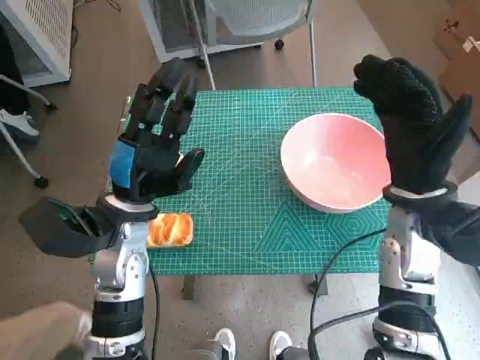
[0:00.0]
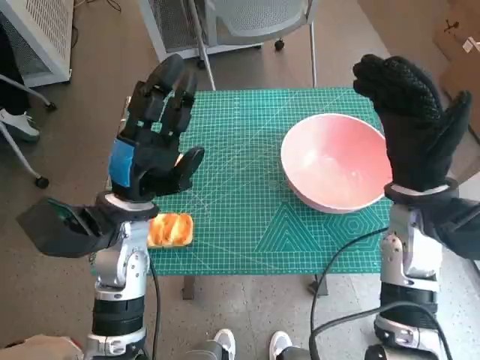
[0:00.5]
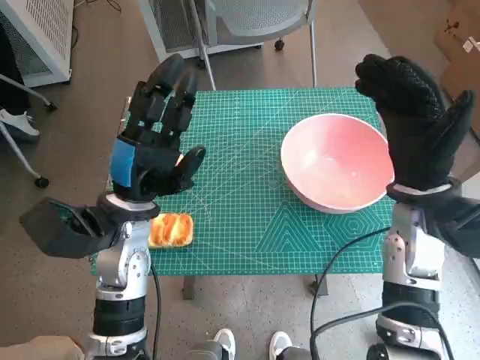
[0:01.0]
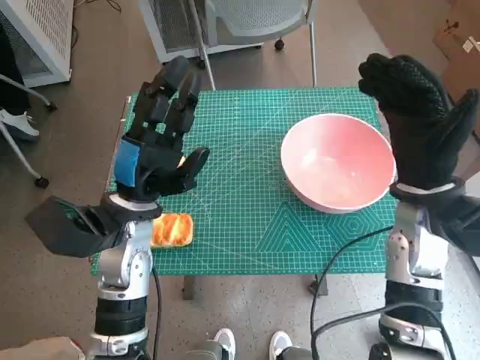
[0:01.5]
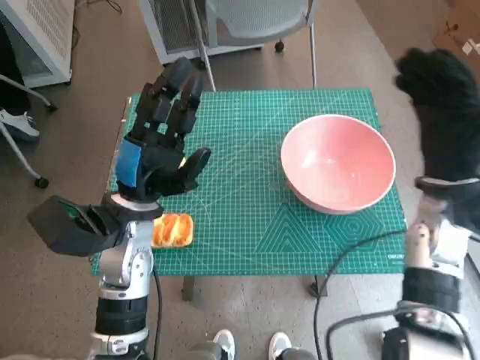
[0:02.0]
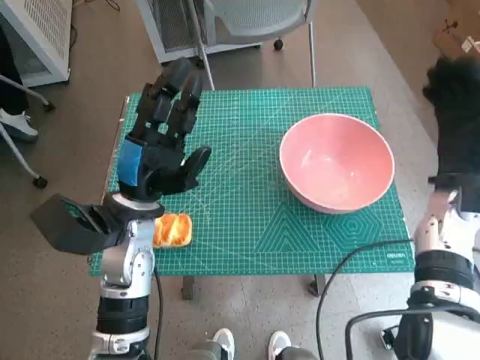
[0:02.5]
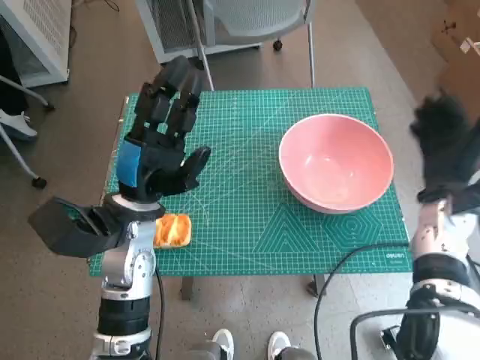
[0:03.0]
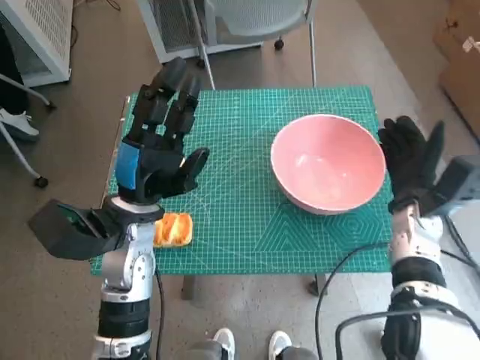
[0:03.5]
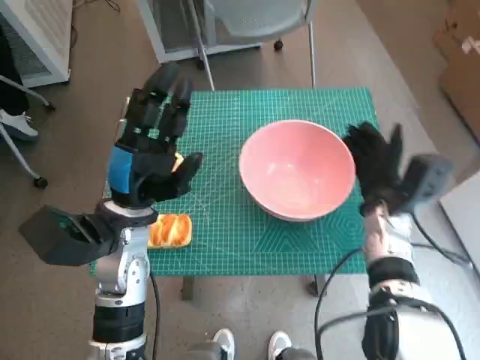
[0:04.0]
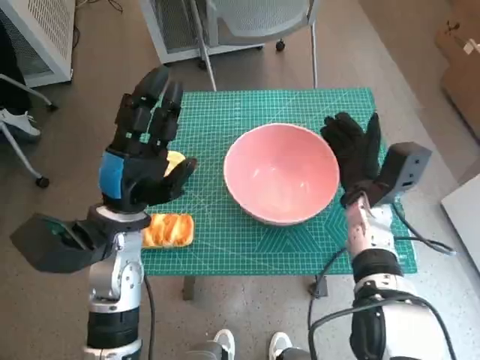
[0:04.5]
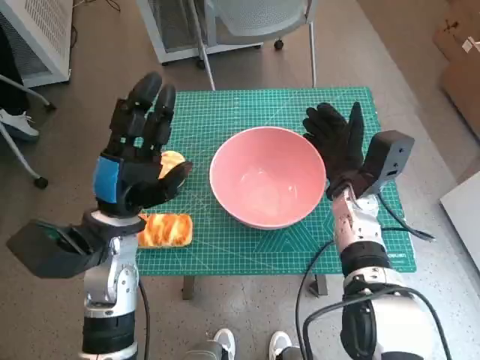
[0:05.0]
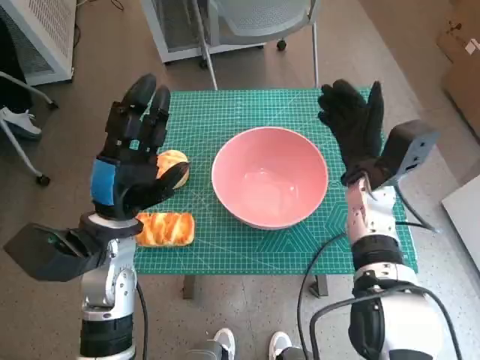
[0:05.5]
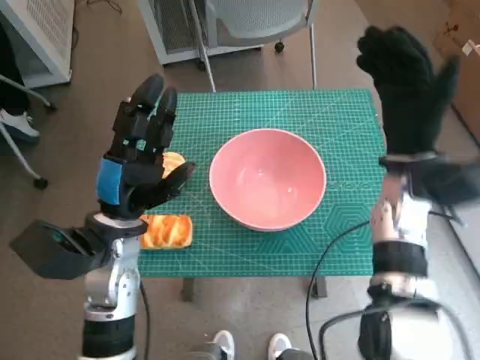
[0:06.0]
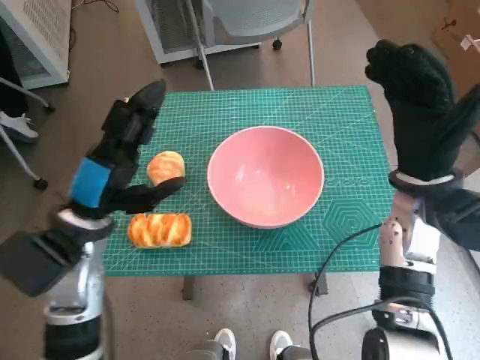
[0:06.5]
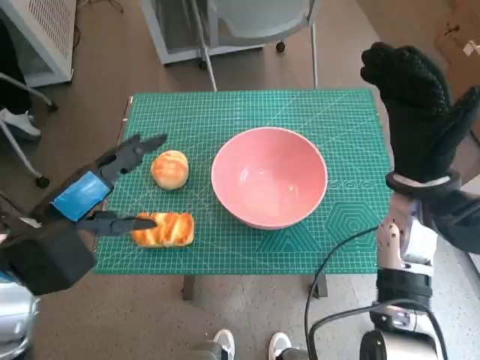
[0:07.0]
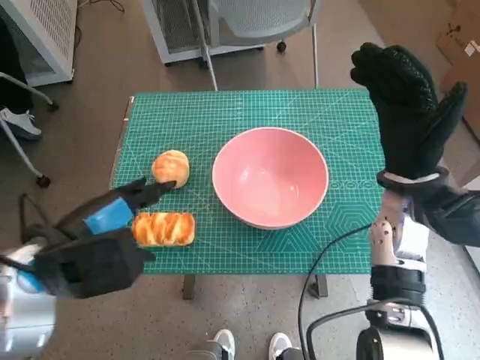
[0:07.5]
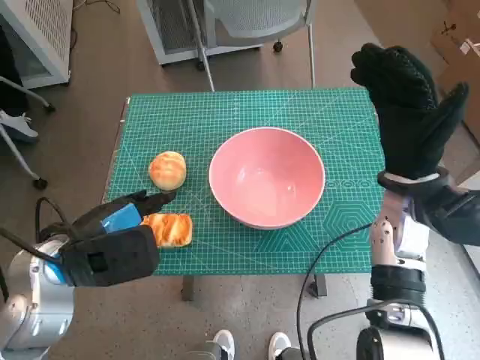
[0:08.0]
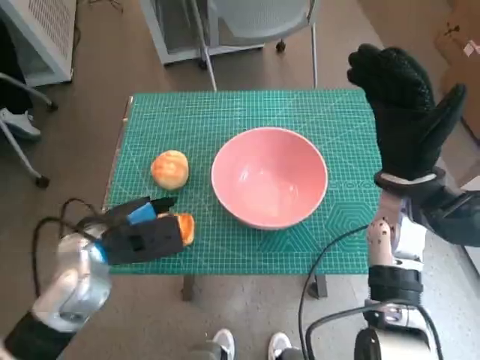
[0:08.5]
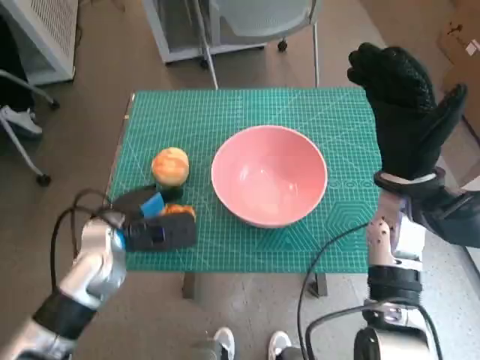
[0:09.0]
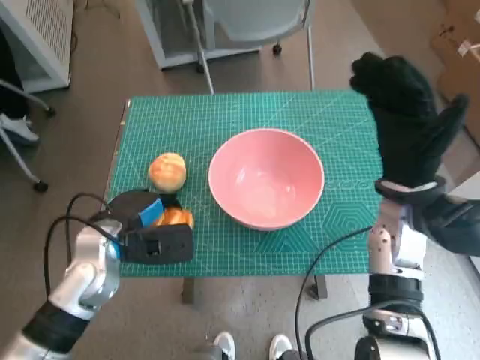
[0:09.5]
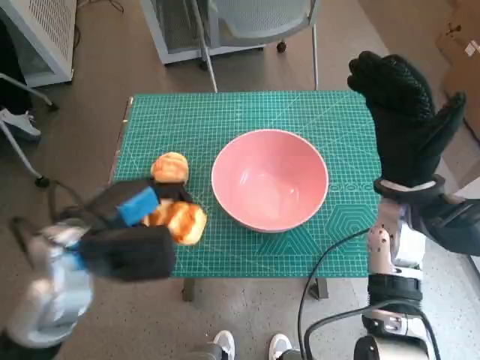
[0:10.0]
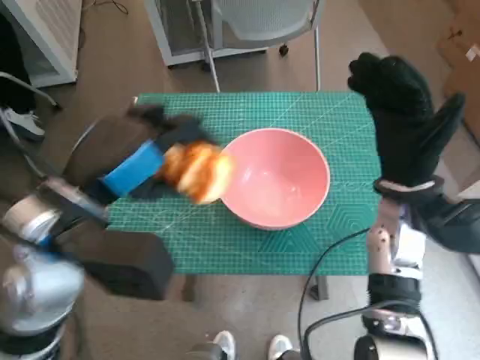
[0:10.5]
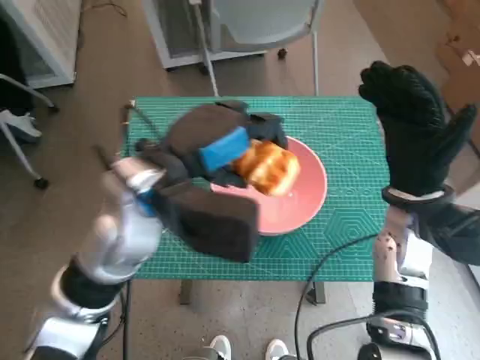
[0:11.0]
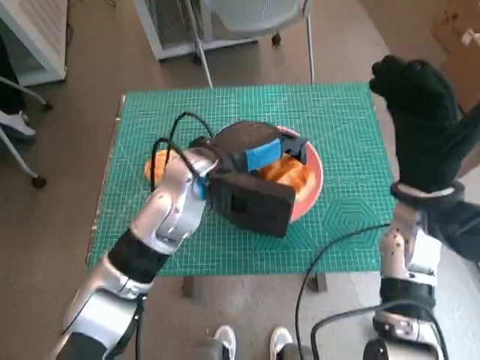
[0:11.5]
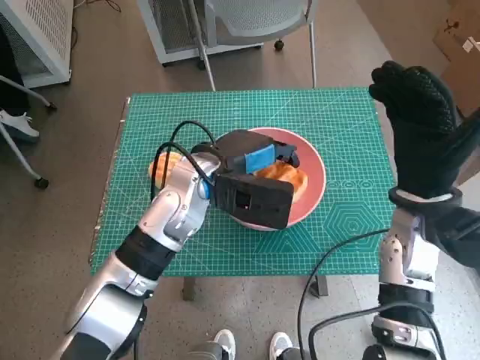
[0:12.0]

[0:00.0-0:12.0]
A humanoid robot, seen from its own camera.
Step, 0.0 to 5.0 s: Move the pink bowl to the center of table with right hand.
Step, 5.5 to 9.0 s: Grasp the long bread with left hand.
2.0 to 4.0 s: The right hand shifts roughly 10 cm downward.
4.0 to 6.0 s: The right hand moves upward, roughly 10 cm.
6.0 to 8.0 s: The left hand ends up roughly 5 cm from where it was.
8.0 to 10.0 s: The left hand travels downward and back again, approximately 10 cm each way.
10.0 to 12.0 s: The left hand travels to the right and forward by roughly 15 cm.

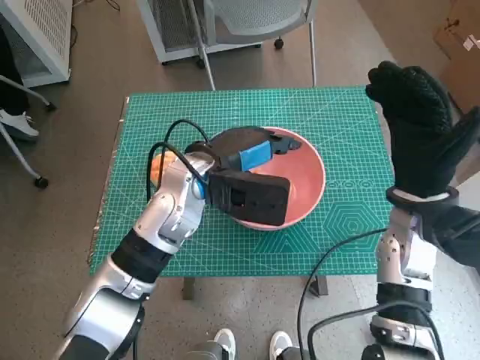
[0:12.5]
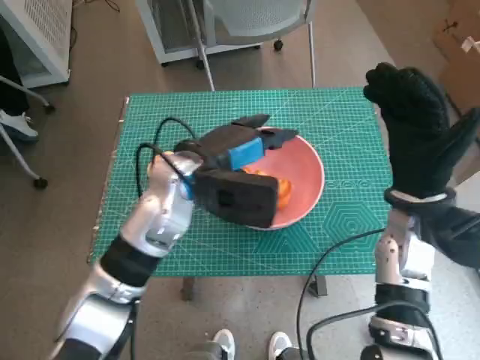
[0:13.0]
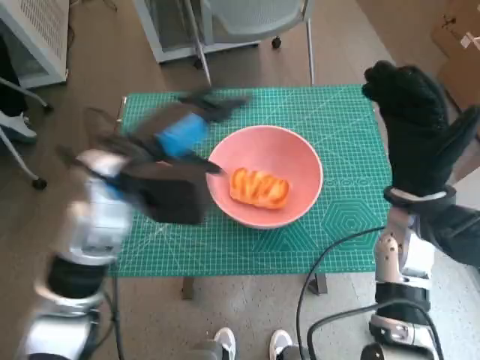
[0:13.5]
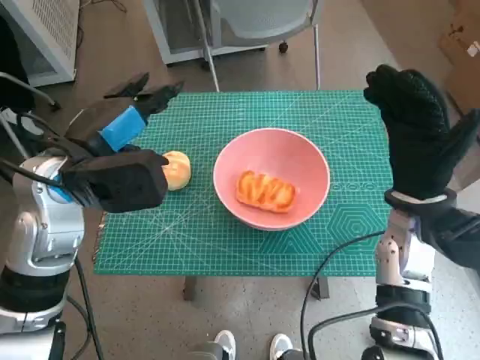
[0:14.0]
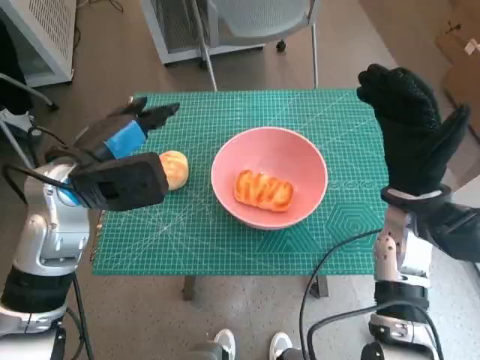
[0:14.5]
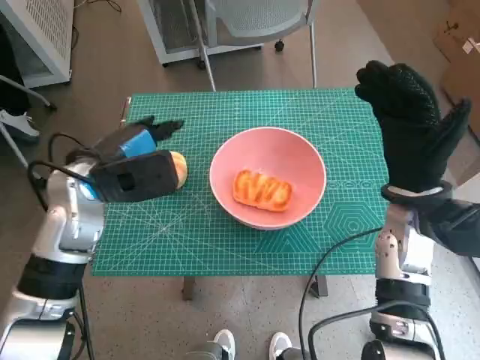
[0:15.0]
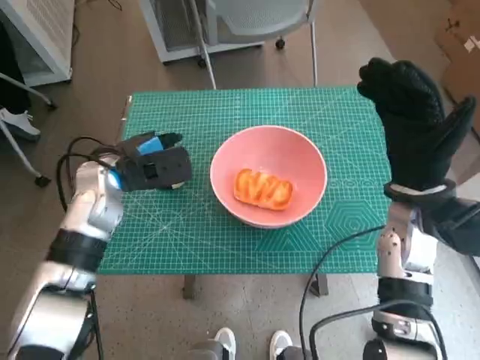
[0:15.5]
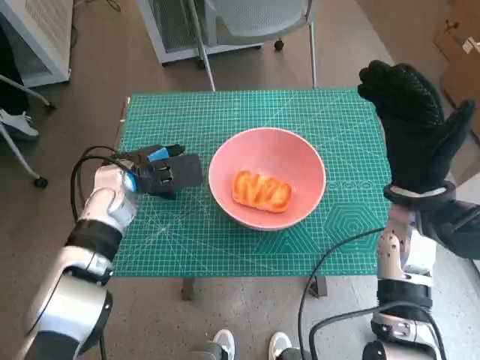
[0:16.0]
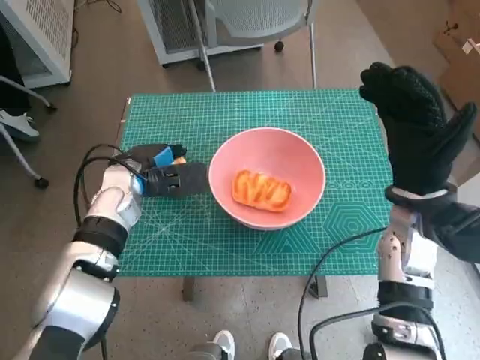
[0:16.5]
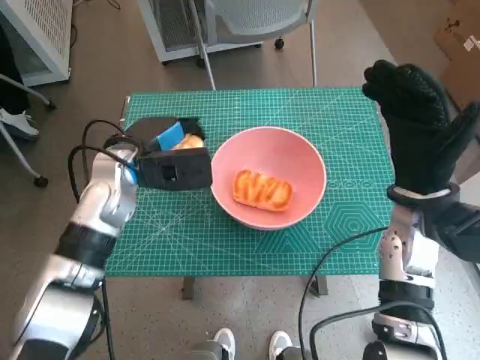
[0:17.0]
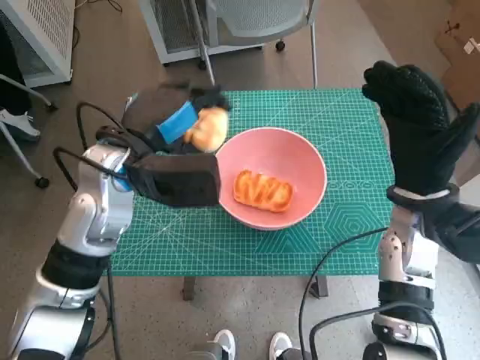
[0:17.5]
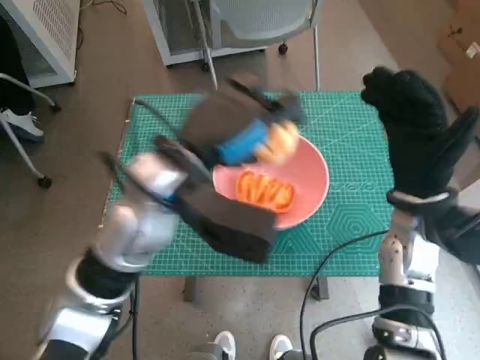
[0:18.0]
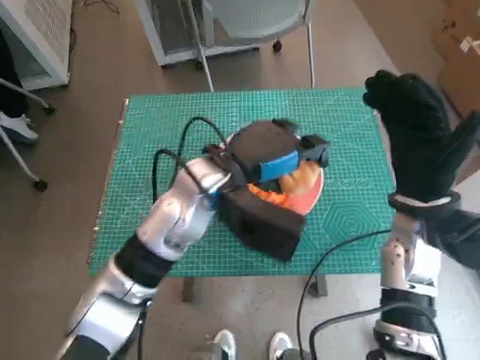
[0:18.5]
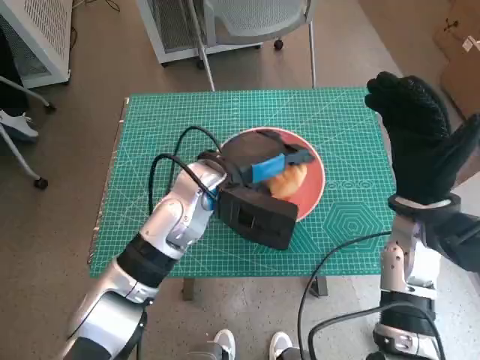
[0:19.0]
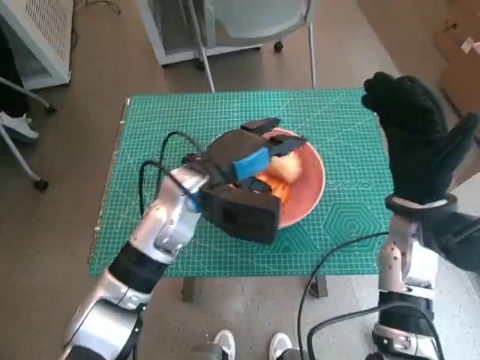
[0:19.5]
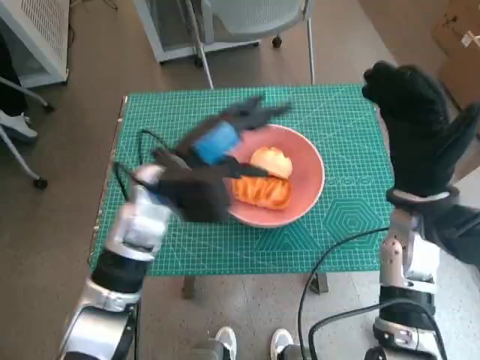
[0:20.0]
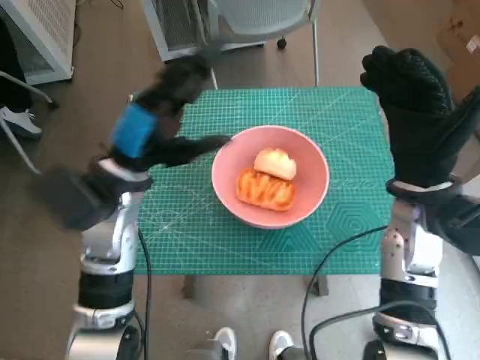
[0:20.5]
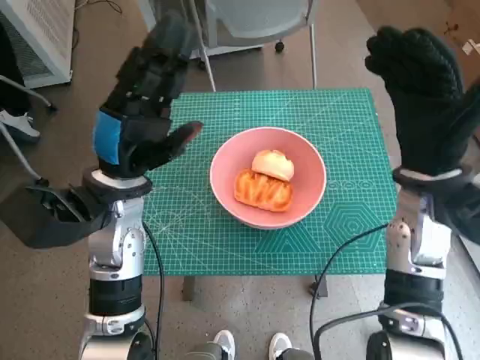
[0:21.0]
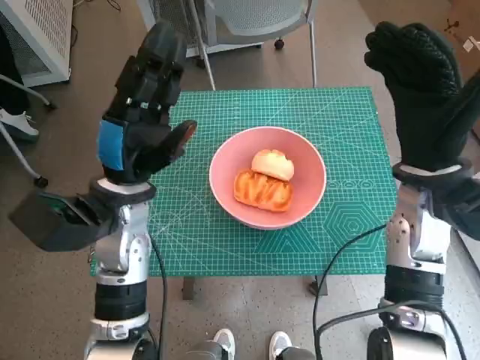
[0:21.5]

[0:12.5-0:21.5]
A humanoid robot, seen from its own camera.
Step, 13.0 to 16.5 s: Grasp the round bread with left hand.
Step, 17.0 to 19.0 s: Place the round bread in pink bowl with left hand.
12.5 to 14.5 s: The left hand heads to the left, covering roughly 15 cm.
14.5 to 17.0 s: The left hand goes about 10 cm forward and downward.
17.0 to 19.5 s: The left hand heads to the right, covering approximately 10 cm.
19.5 to 21.5 s: The left hand shifts approximately 10 cm to the left.

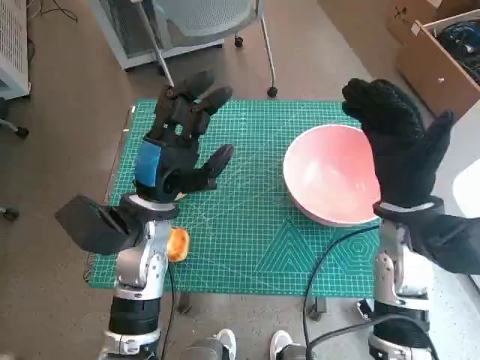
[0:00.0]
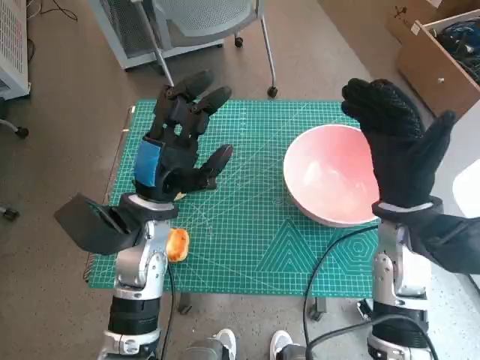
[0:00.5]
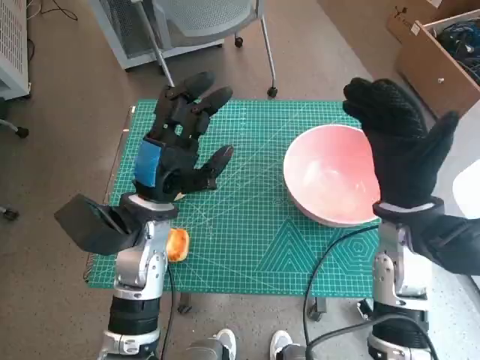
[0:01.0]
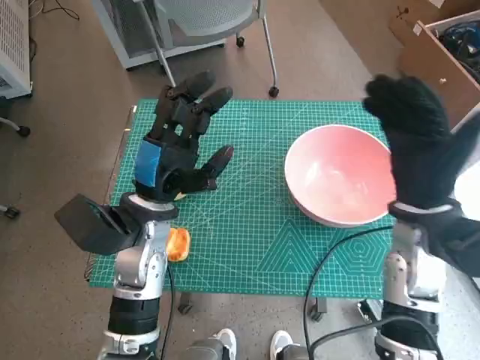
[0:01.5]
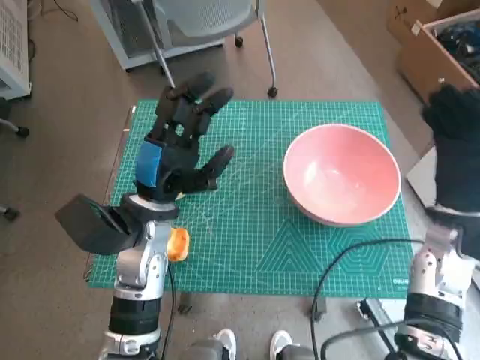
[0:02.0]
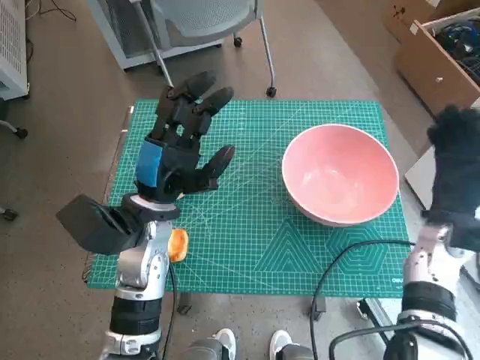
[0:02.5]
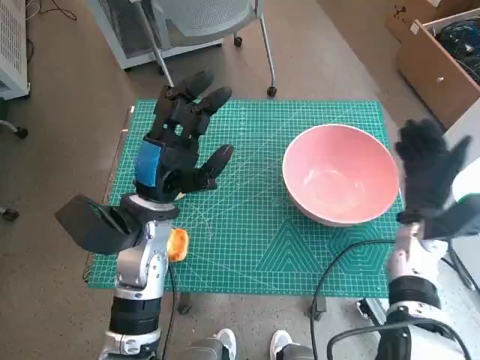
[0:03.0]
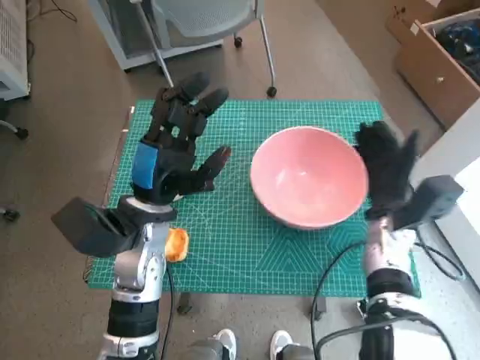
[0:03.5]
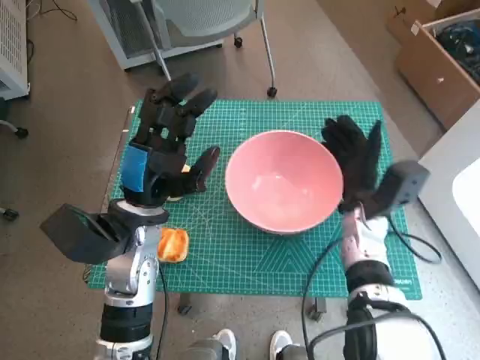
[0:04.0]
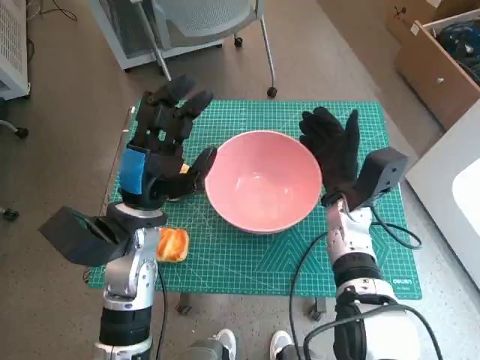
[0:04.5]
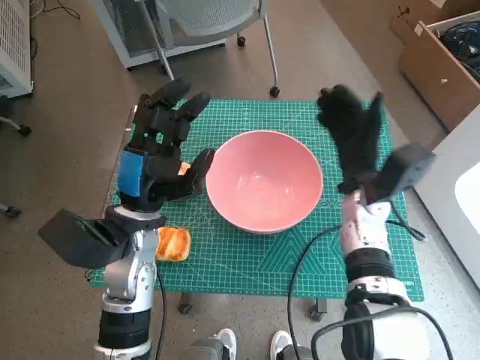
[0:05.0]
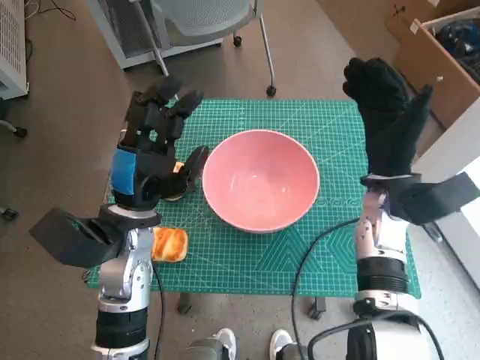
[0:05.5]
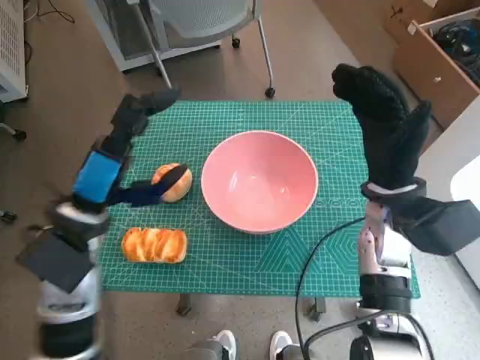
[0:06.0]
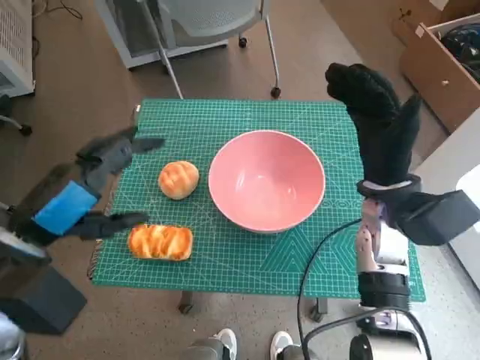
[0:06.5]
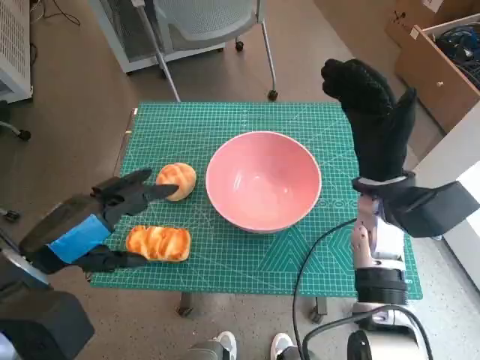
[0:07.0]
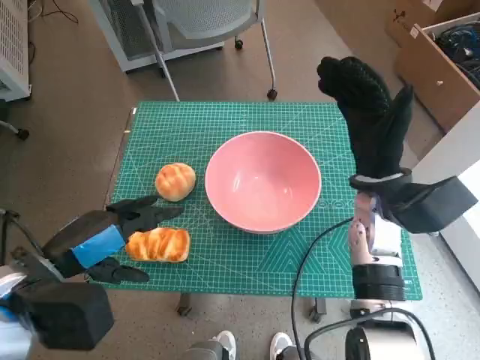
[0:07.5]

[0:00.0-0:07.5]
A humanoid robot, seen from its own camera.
Step, 0.0 to 4.5 s: Move the pink bowl to the center of table with right hand.
2.0 to 4.0 s: The right hand goes some 10 cm to the left and downward.
4.0 to 5.5 s: The right hand heads upward, covering about 5 cm.
5.5 to 7.5 s: The left hand goes about 10 cm backward and to the left.
